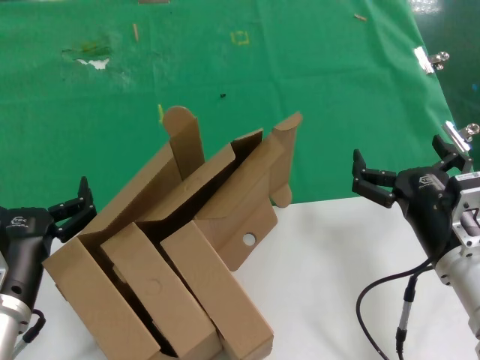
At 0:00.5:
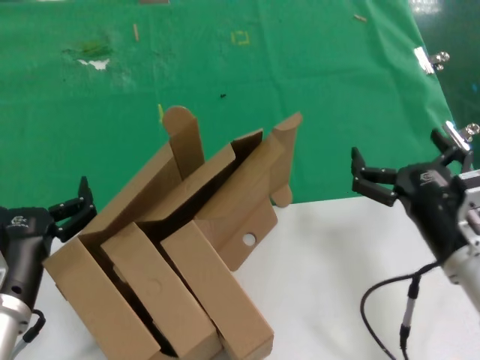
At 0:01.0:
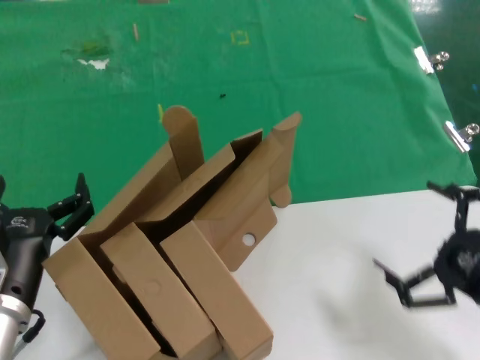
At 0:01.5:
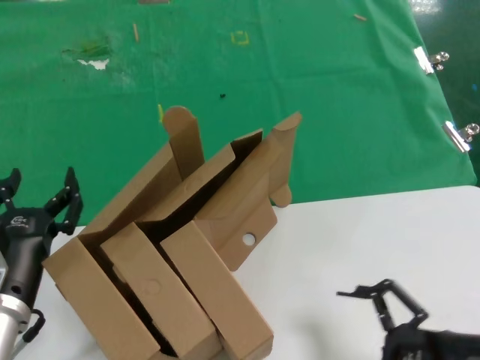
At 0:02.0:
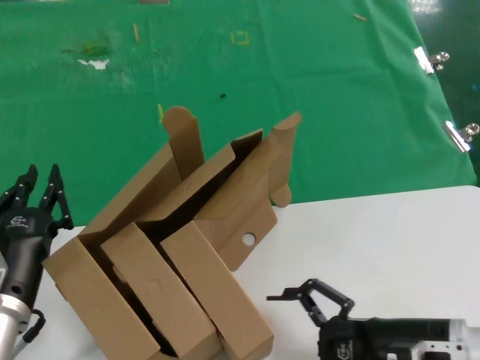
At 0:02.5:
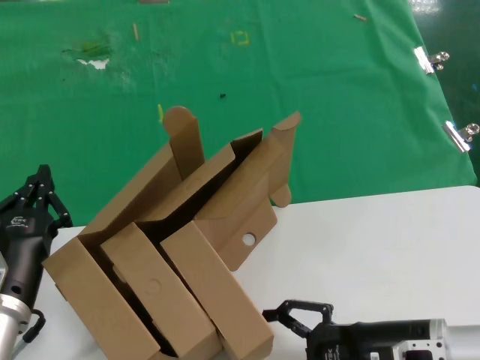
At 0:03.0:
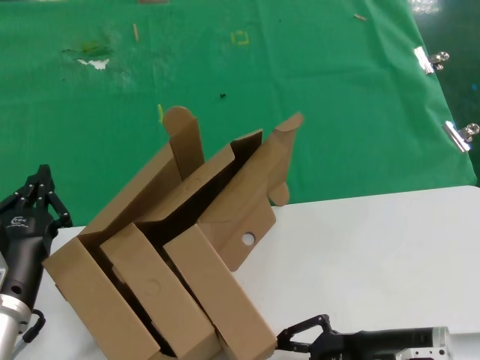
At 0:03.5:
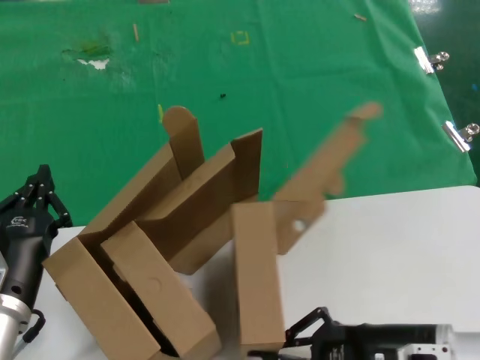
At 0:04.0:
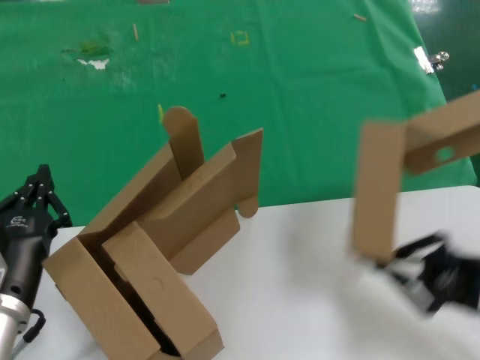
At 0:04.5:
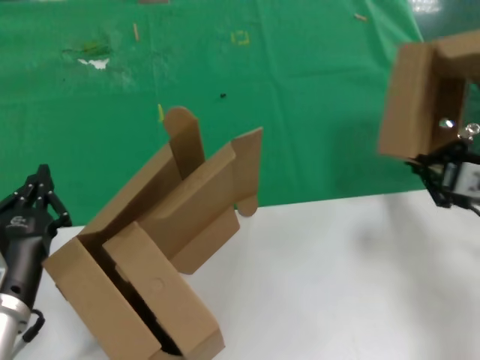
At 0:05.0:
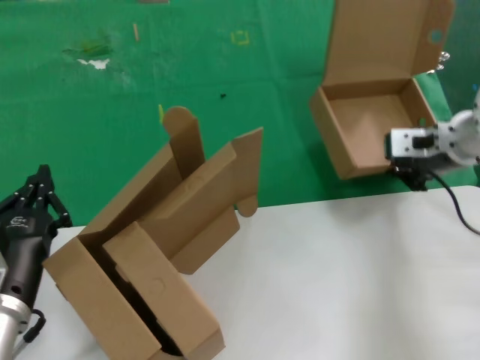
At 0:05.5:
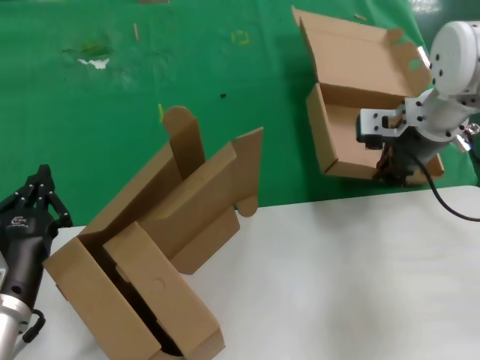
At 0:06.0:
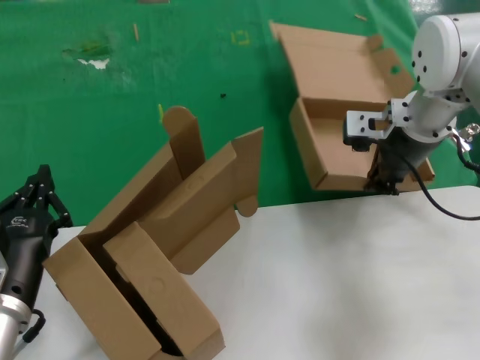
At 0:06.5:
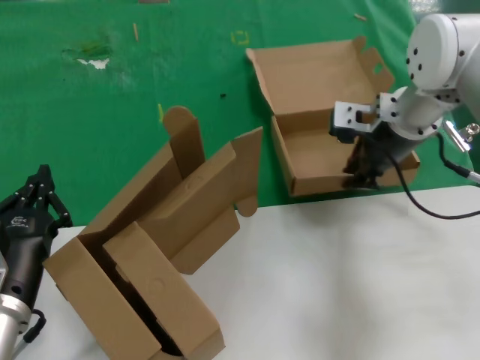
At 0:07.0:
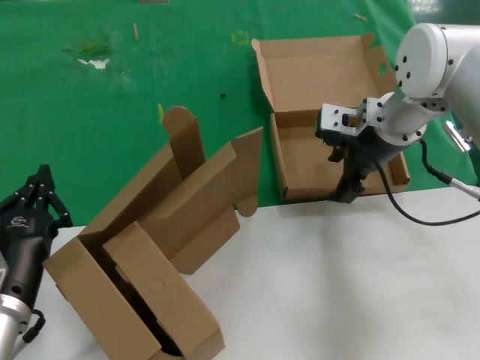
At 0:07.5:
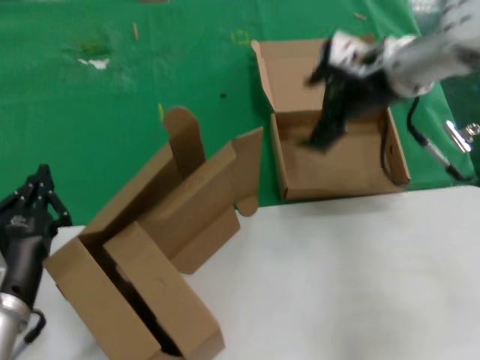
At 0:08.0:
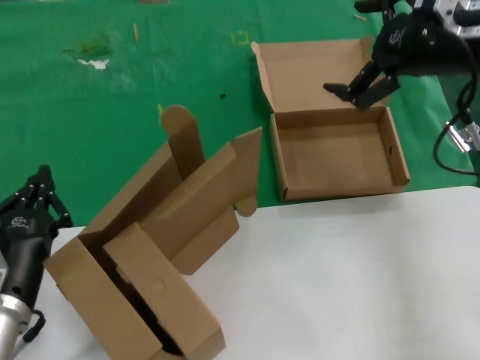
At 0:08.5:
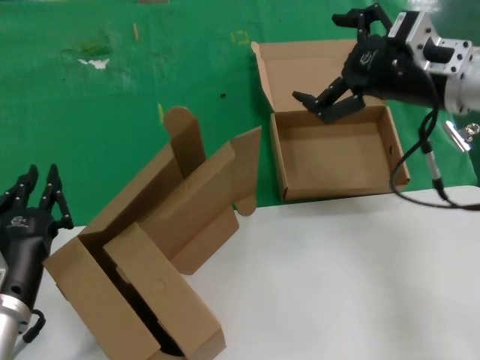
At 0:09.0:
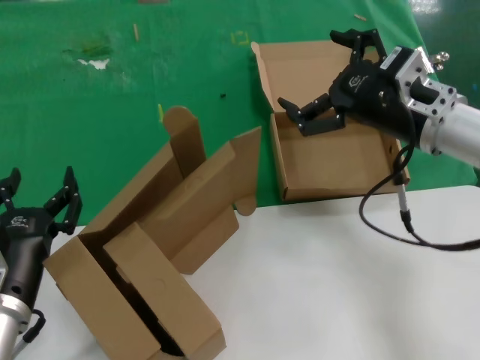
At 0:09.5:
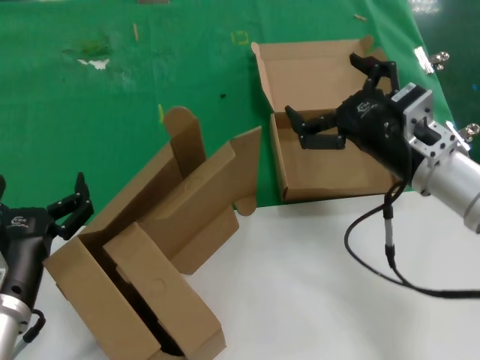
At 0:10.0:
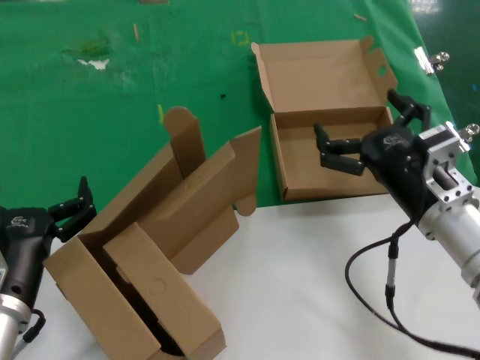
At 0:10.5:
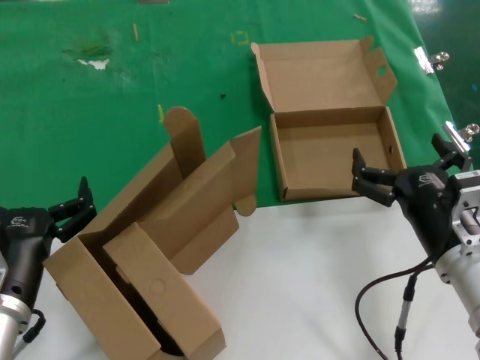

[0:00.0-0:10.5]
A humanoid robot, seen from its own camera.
Task of the whole recording: pick up the paper box and put it at the back.
Step, 0:00.0 to 0:03.0: Grasp the paper box.
Step, 0:03.5 to 0:07.0: Place the paper box on the table.
0:00.0 to 0:02.0: The right hand travels backward by approximately 5 cm.
0:02.0 to 0:04.0: The right hand is displaced to the right by roughly 10 cm.
0:04.0 to 0:06.5: The right hand goes about 30 cm forward and to the left.
0:06.5 to 0:08.5: The right hand goes some 10 cm backward and to the right.
0:08.5 to 0:10.5: The right hand moves downward and backward, about 25 cm.
